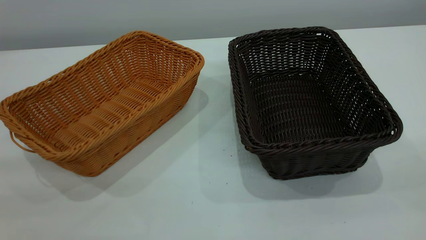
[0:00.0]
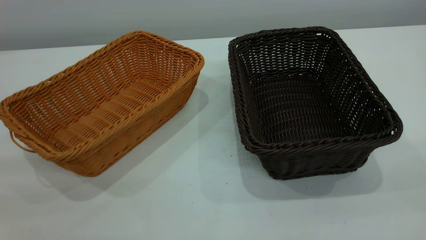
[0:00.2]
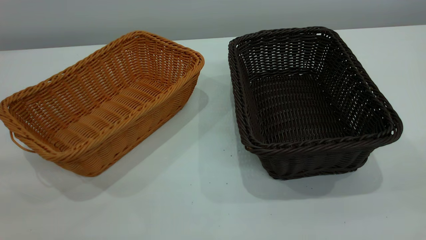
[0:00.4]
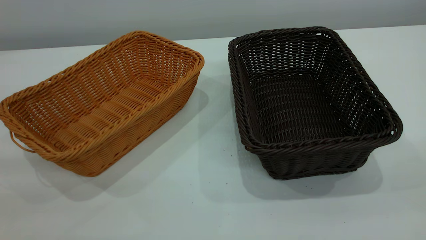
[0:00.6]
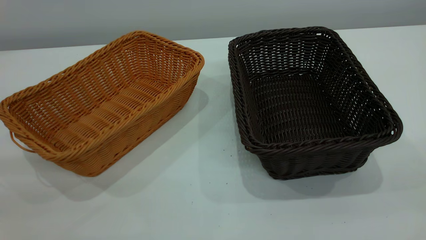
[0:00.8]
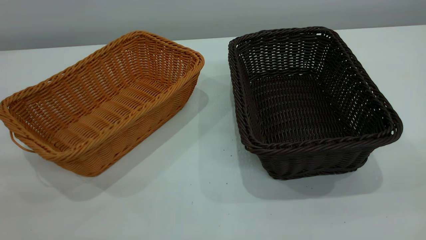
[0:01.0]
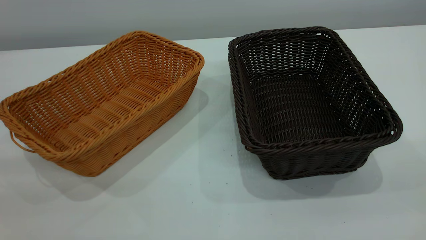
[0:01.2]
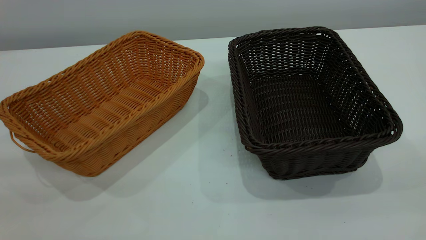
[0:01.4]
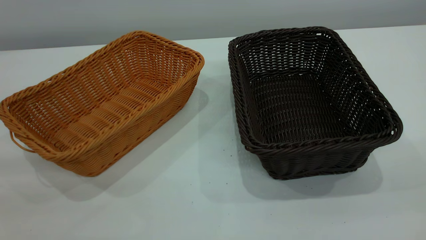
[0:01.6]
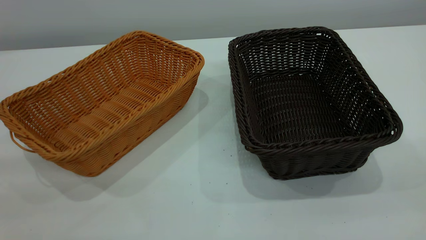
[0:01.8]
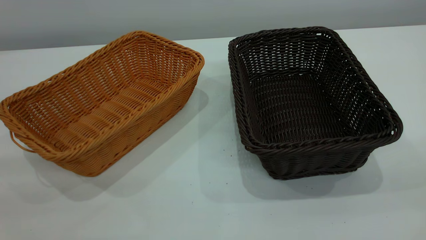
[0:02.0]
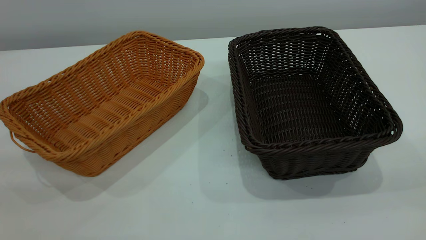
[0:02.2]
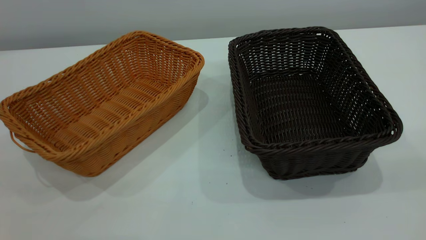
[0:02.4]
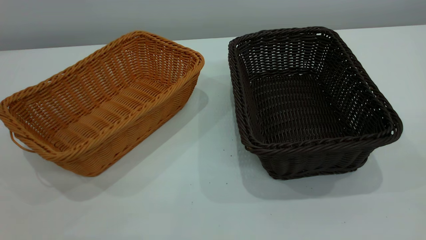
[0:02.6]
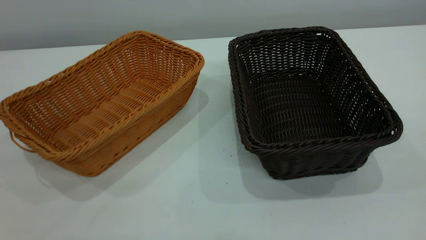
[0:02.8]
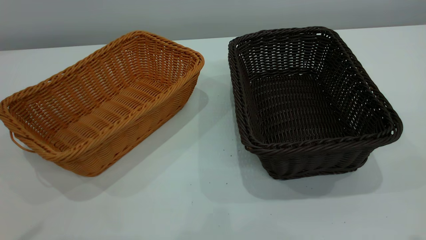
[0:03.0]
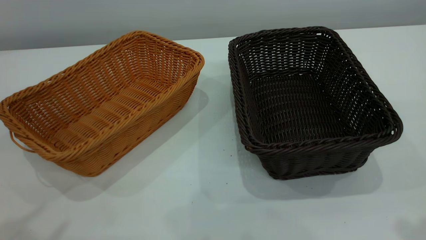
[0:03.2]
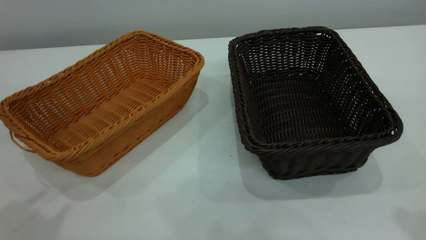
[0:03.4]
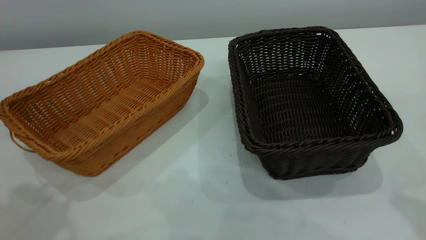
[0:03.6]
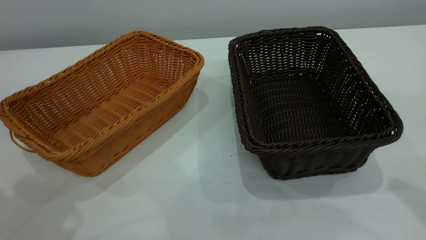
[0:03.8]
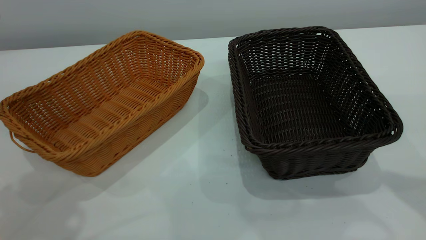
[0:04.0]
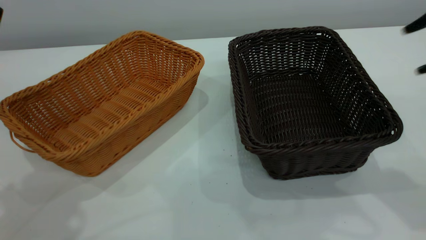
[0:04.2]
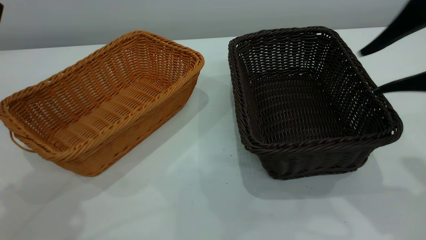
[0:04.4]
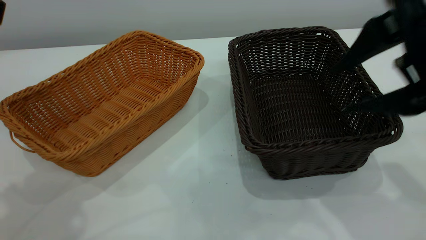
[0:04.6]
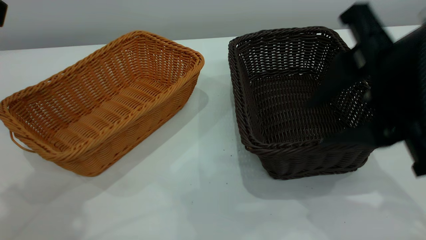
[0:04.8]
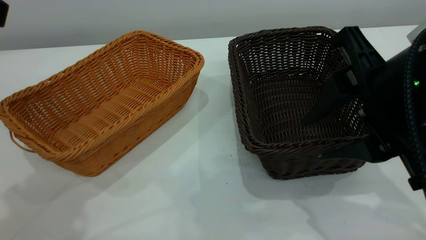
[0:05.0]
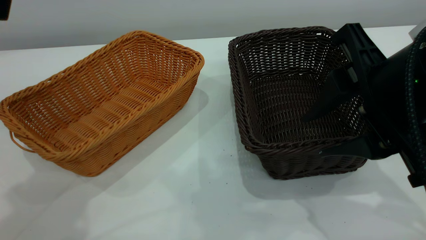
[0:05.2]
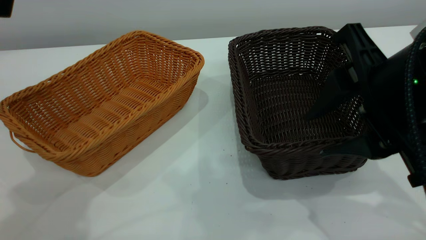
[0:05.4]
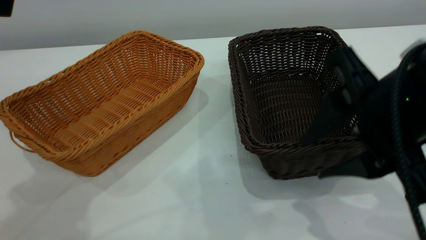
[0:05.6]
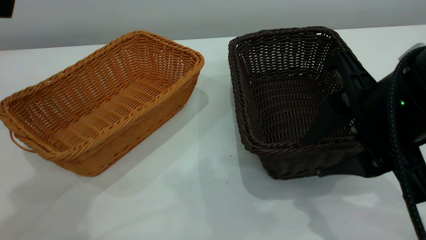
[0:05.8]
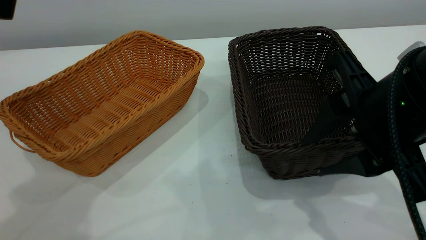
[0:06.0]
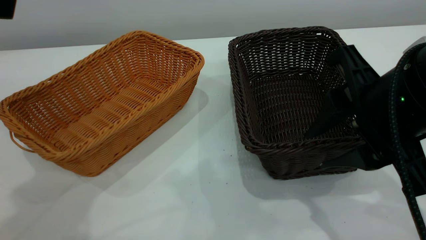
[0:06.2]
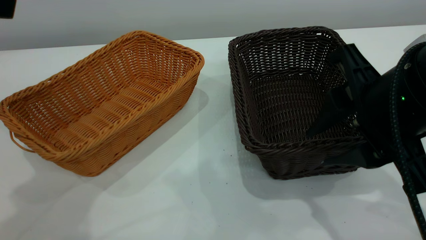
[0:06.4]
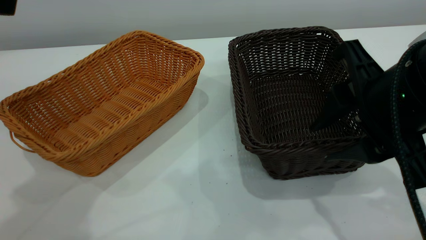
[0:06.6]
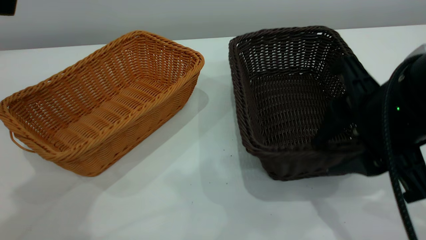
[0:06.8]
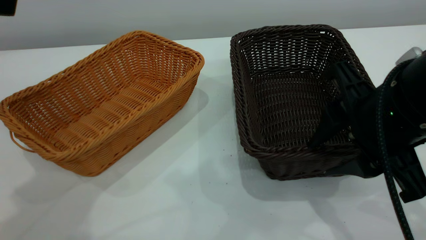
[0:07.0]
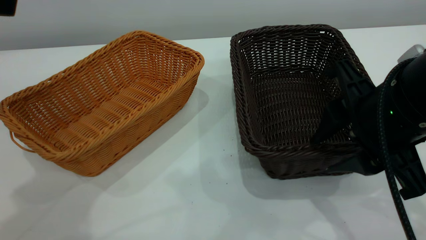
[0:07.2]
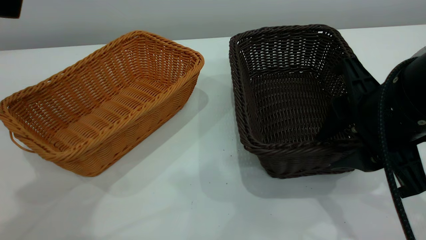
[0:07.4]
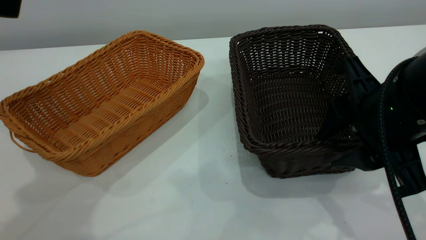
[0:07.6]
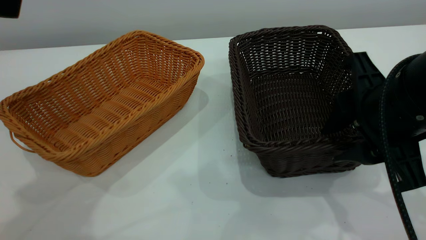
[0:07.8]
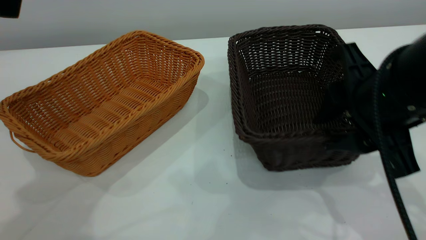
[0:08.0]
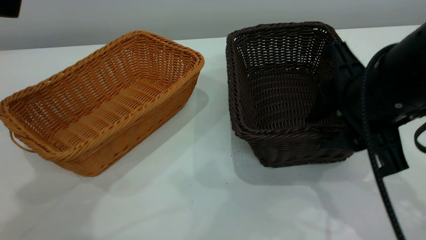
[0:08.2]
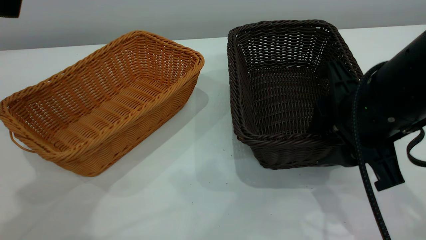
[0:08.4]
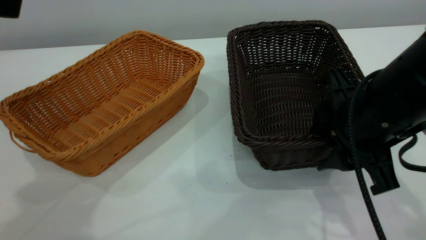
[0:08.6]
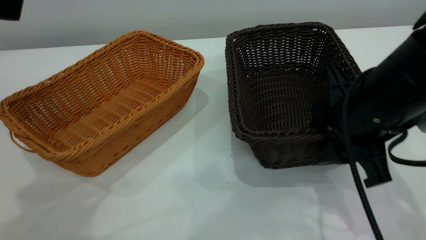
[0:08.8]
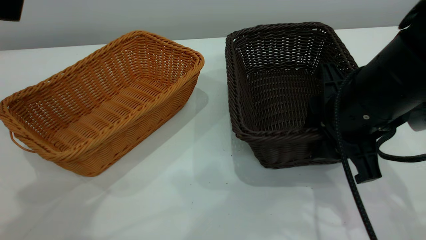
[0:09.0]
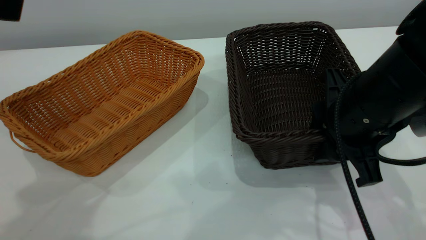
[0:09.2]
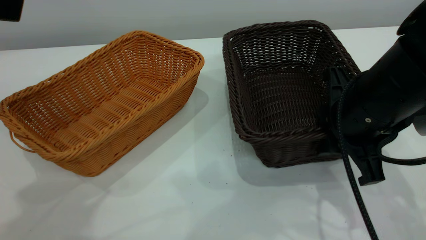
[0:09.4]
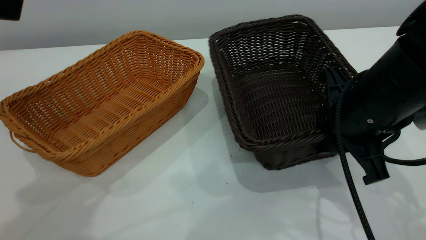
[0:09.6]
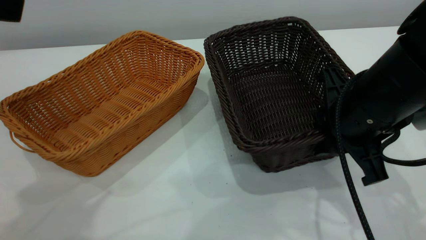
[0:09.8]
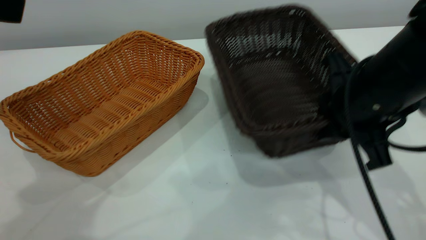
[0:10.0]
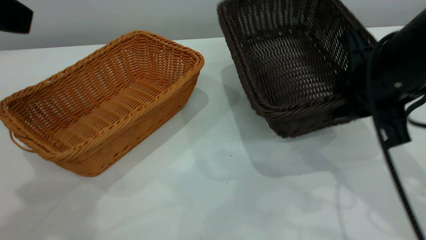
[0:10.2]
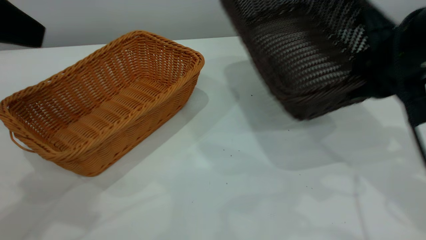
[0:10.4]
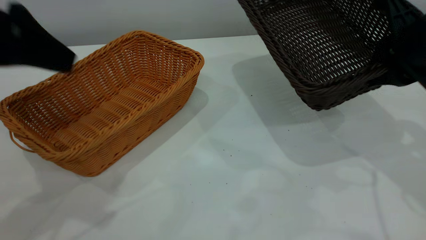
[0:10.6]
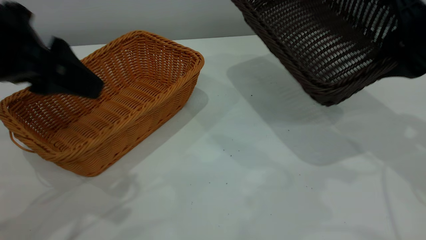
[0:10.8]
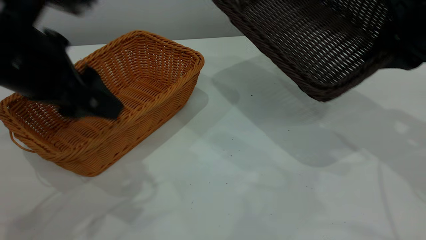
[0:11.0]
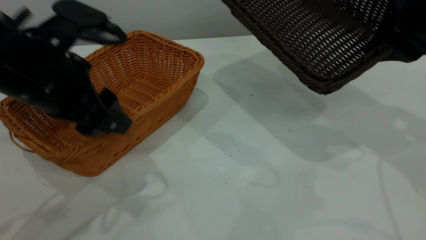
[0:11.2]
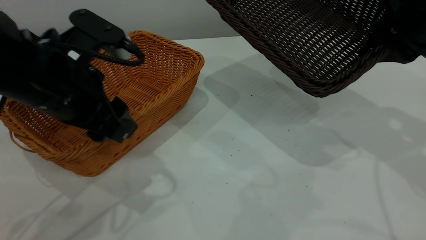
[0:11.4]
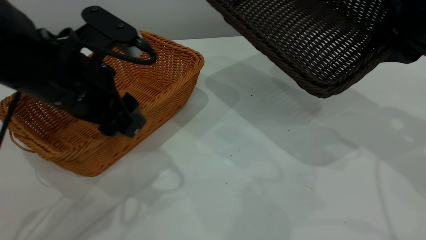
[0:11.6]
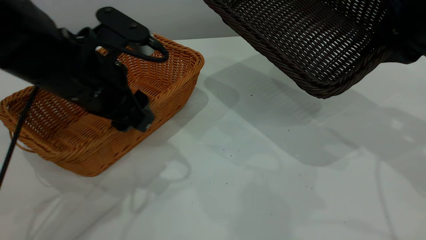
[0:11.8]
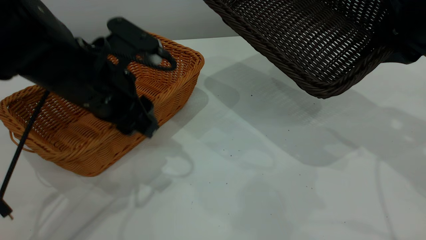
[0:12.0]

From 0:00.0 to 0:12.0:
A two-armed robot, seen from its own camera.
Task of the whole recording: the left gripper grasp the brown basket and place it in the center of the table, the right gripper grasp the black basket and place it inside the brown one.
Step, from 0:00.0 to 0:10.2: Pick up the light basket with the right gripper.
From 0:00.0 to 0:01.6: Both grippers stay about where they are.
From 0:03.0 to 0:04.4: The right gripper is displaced forward, downward and to the left by about 15 cm.
From 0:04.4 to 0:06.0: The right gripper travels downward and to the left by approximately 10 cm.
From 0:06.0 to 0:07.6: The grippers stay close to where they were, moving slightly.
From 0:07.6 to 0:09.0: The right gripper moves about 5 cm.
From 0:09.0 to 0:10.4: The right gripper moves to the right, about 5 cm, and closes.
From 0:10.4 to 0:12.0: The left gripper is displaced downward, to the right and forward by some 20 cm.

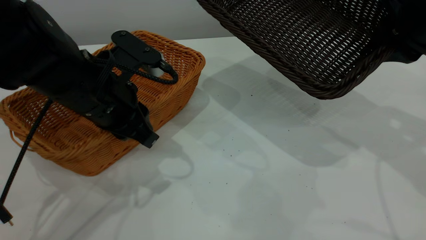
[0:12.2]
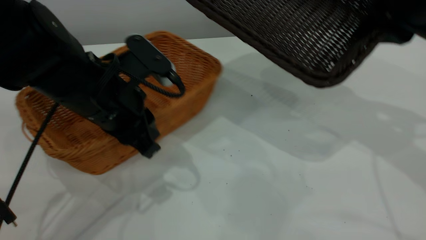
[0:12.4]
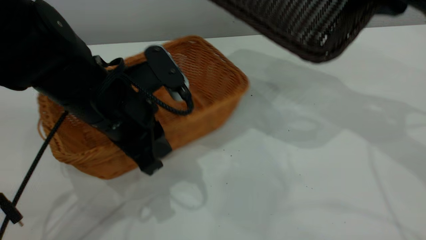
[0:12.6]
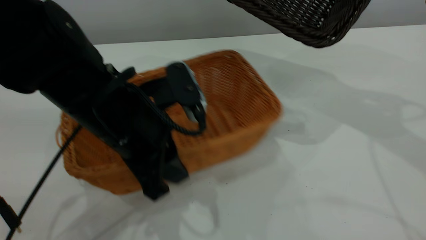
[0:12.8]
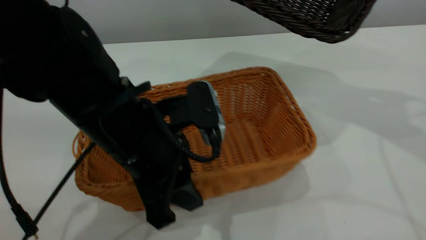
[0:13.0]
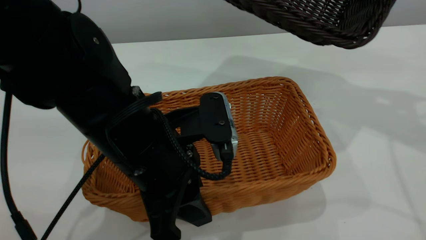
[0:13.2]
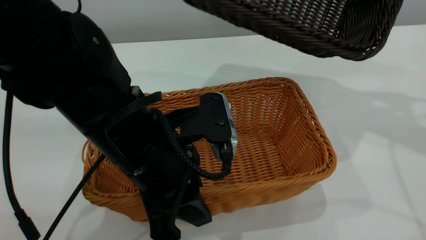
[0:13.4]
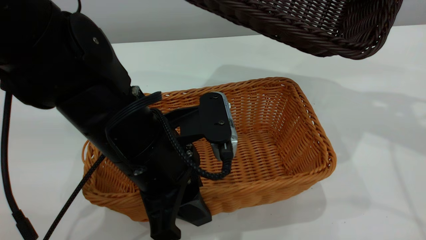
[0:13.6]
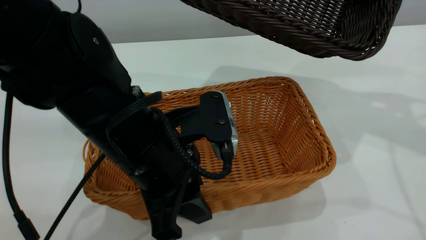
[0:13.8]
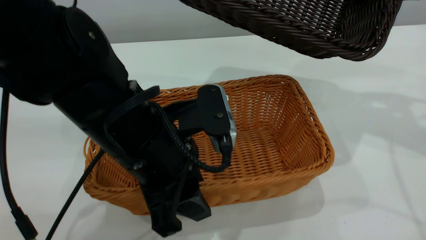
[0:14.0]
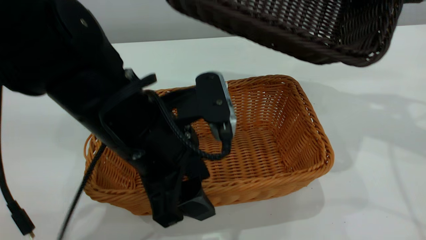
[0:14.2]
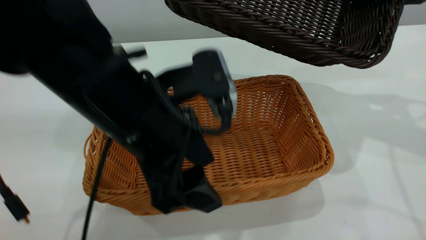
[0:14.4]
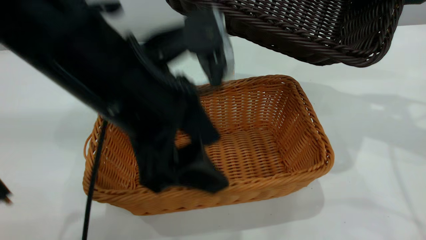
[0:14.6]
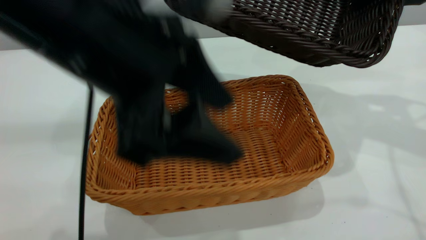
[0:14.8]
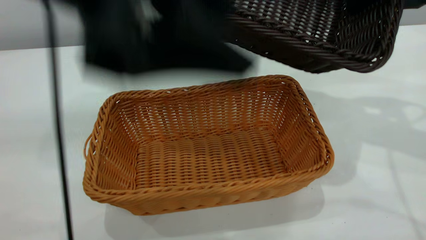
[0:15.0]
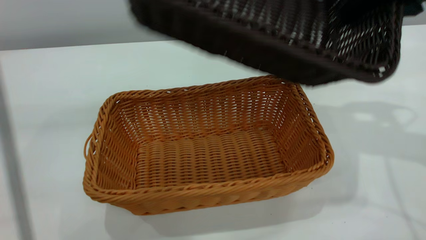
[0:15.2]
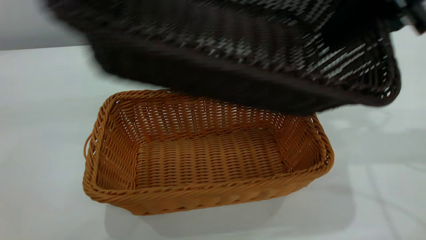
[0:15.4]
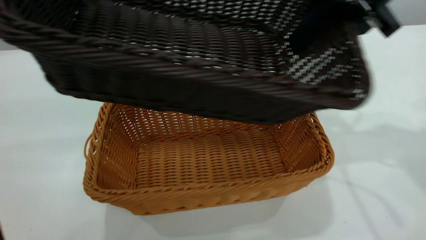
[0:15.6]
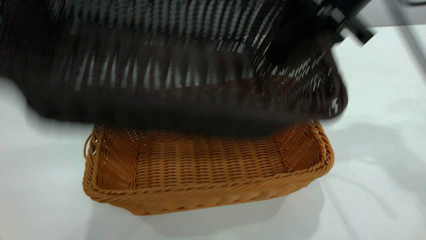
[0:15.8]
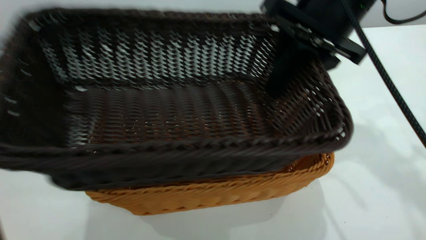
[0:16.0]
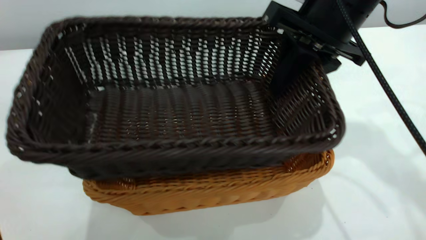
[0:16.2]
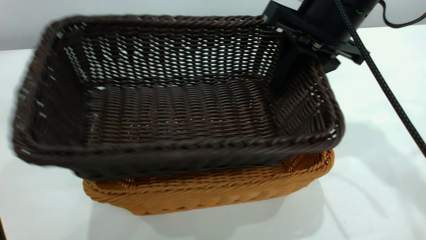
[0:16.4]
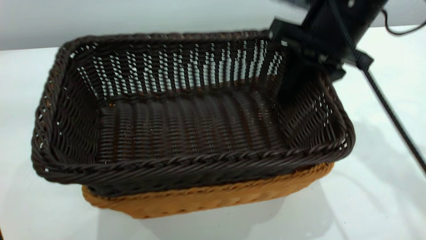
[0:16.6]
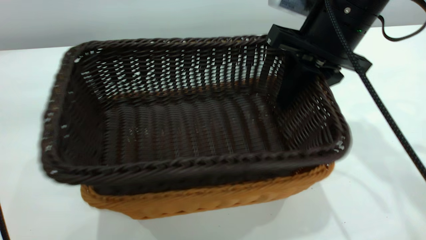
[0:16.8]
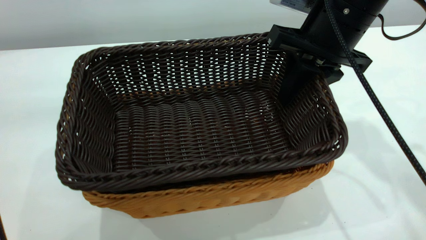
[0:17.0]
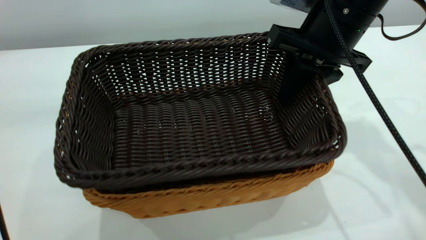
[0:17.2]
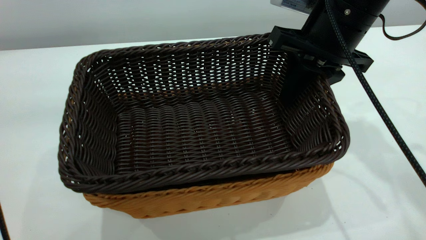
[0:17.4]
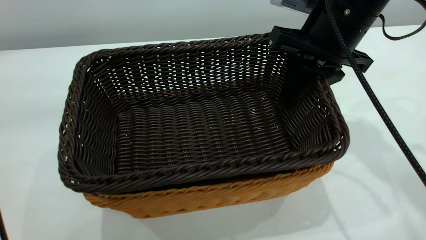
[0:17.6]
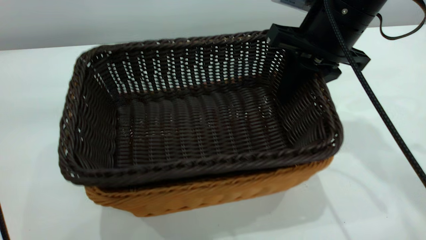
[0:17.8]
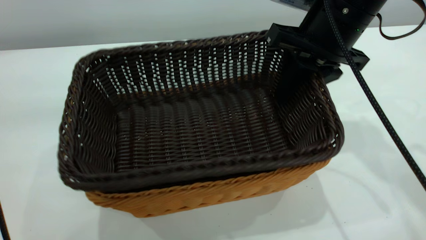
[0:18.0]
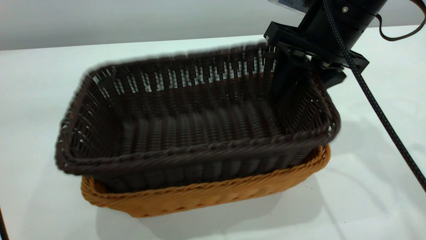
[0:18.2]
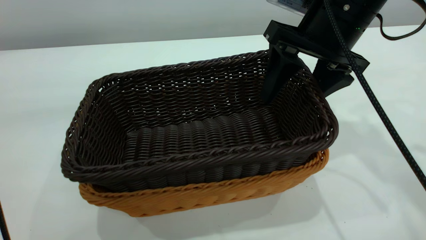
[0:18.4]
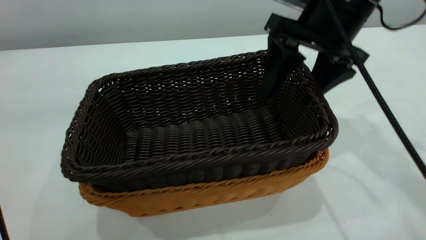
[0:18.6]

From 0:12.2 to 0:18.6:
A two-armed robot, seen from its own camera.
Task of the whole recording: the left gripper grasp the brown basket and place it in the center of the table, the right gripper grasp the black basket and place it inside the brown one.
Step, from 0:12.2 to 0:14.6: Place the light-colored basket in the center.
From 0:12.2 to 0:13.8: The left gripper travels backward and to the right by about 10 cm. Meanwhile the right gripper goes some 5 cm upward.
From 0:13.8 to 0:15.4: The left gripper heads upward, covering roughly 30 cm, and opens up; the right gripper shifts approximately 5 cm to the left.
From 0:15.4 to 0:17.0: The right gripper is displaced downward and to the left by approximately 10 cm.
From 0:17.0 to 0:18.6: The right gripper opens up.
